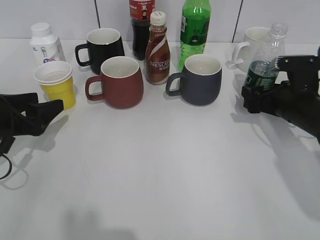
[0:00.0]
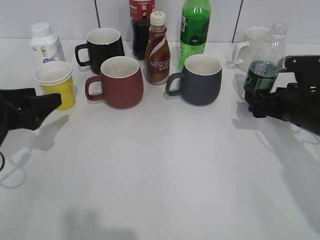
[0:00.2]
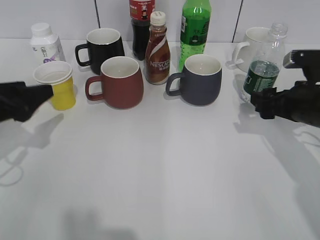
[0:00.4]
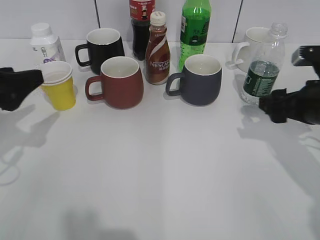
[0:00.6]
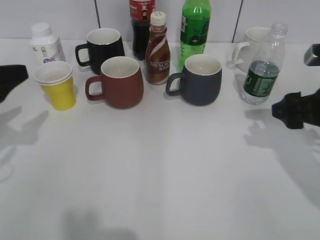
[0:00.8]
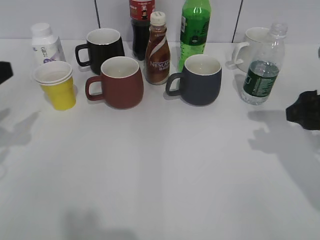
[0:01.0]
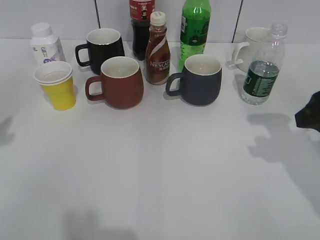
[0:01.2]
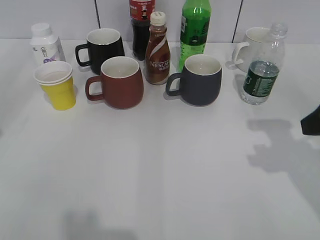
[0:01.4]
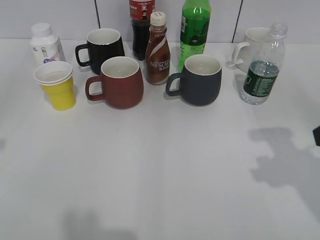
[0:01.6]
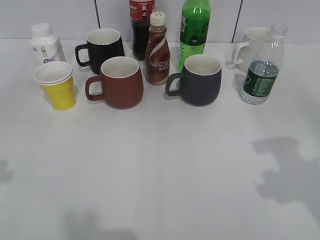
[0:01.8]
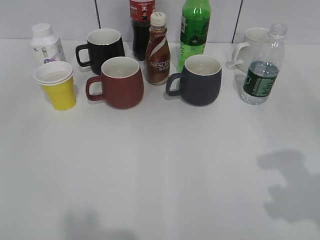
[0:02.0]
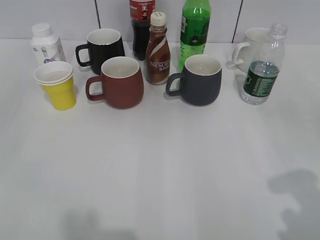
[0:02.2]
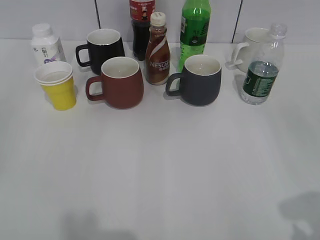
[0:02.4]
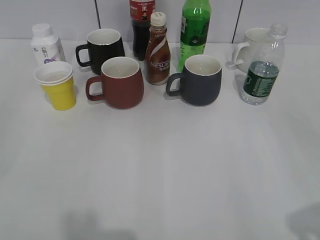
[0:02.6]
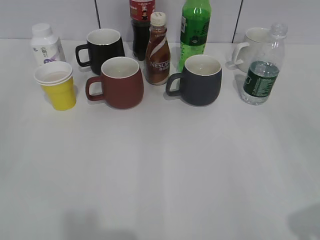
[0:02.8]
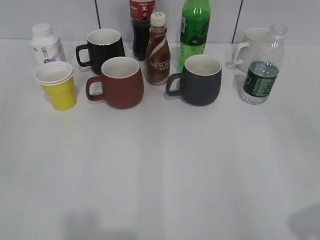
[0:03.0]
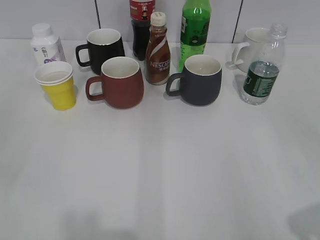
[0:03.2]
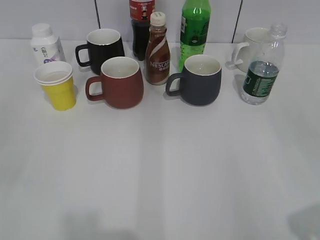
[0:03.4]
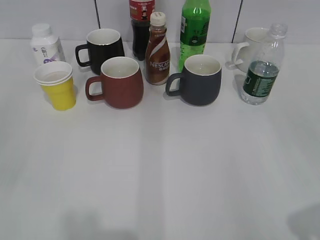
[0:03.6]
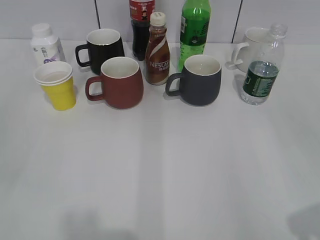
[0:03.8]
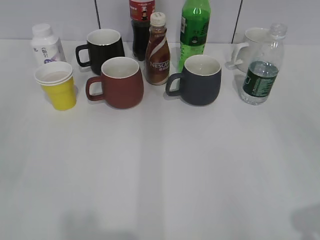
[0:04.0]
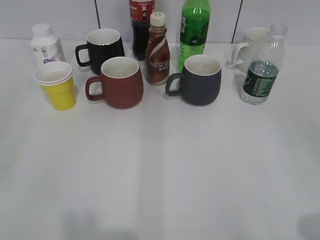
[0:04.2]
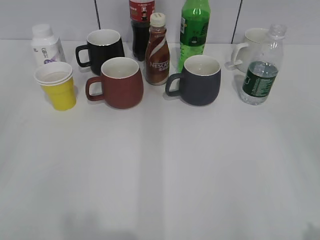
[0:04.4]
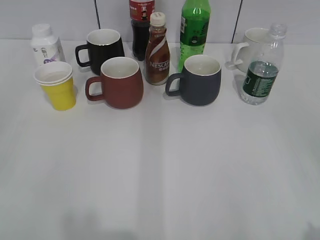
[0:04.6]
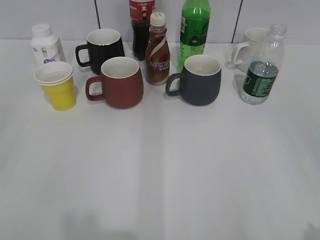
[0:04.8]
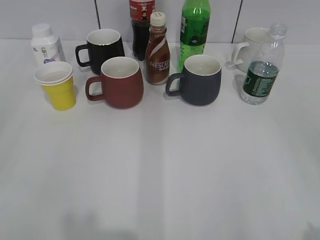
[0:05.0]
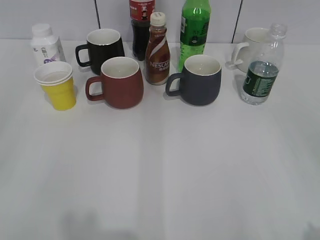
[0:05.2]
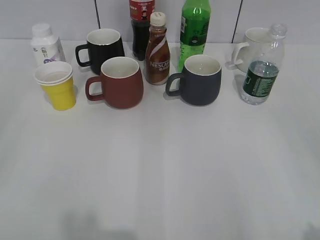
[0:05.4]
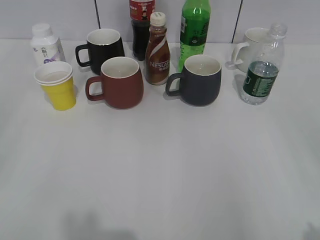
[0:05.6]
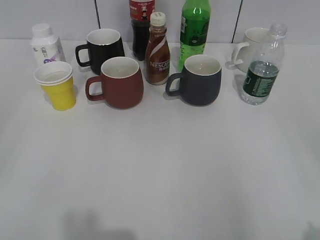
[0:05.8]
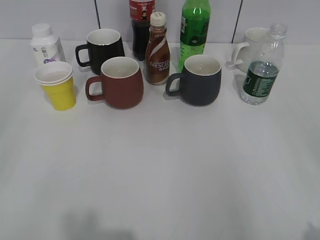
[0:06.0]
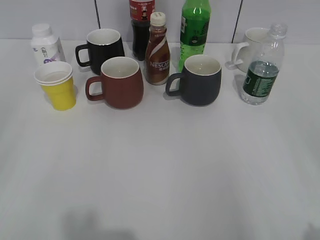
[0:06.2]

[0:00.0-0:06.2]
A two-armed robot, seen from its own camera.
0:00.0 to 0:01.6: Both grippers travel together upward and backward, about 20 cm. The right gripper closes up.
0:01.6 to 0:03.2: The right gripper is displaced backward by approximately 15 cm.
0:04.6 to 0:06.2: Neither gripper changes place.

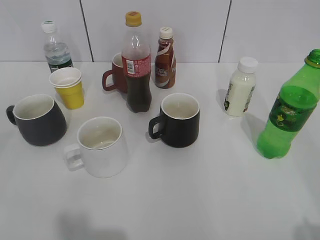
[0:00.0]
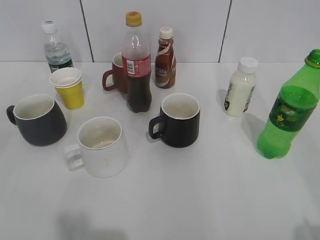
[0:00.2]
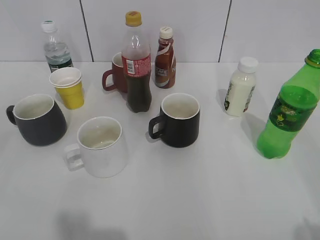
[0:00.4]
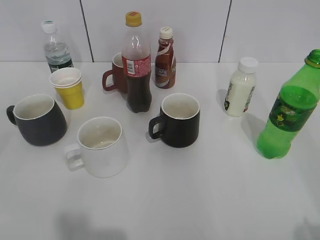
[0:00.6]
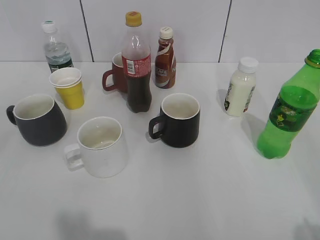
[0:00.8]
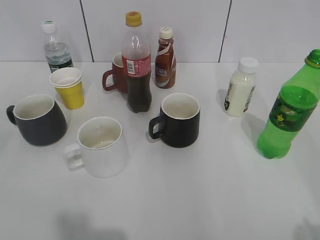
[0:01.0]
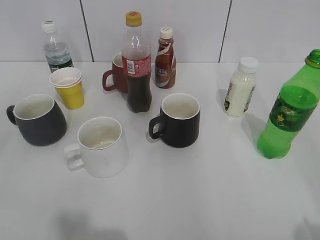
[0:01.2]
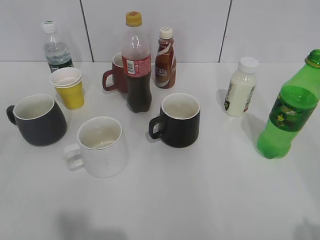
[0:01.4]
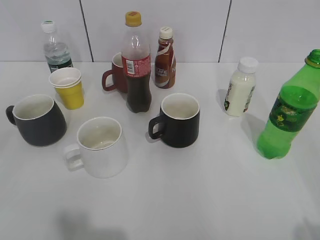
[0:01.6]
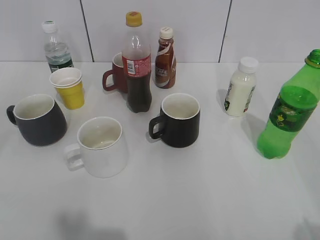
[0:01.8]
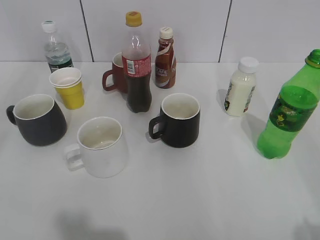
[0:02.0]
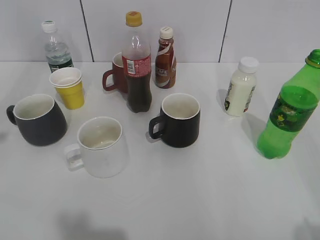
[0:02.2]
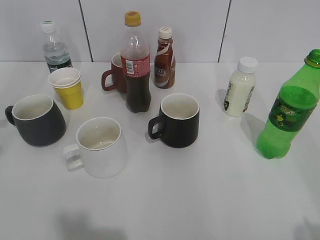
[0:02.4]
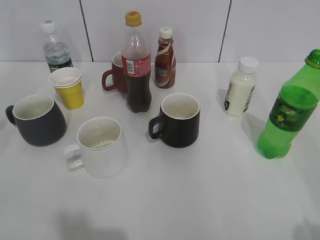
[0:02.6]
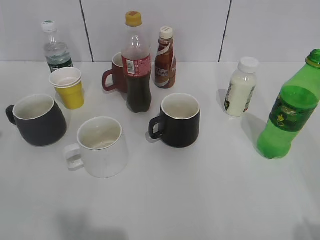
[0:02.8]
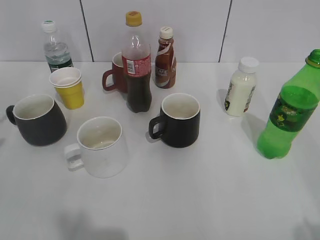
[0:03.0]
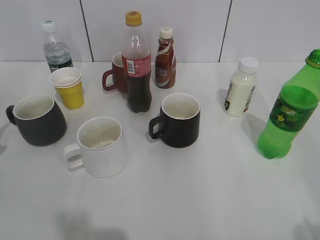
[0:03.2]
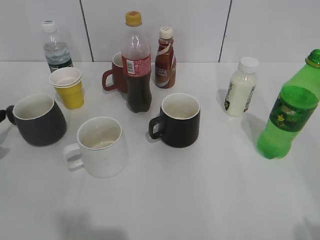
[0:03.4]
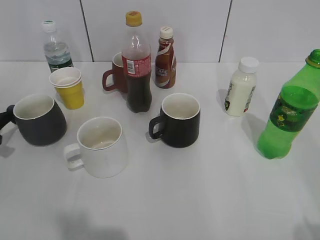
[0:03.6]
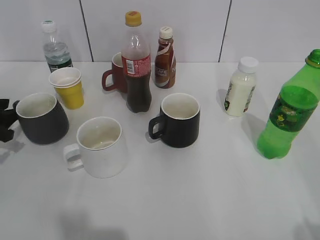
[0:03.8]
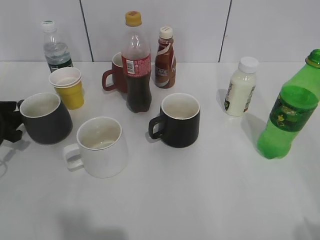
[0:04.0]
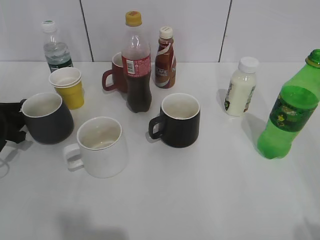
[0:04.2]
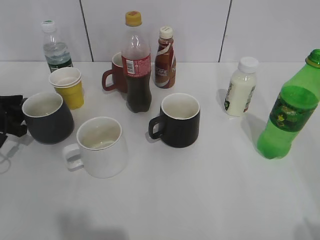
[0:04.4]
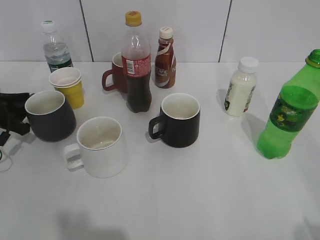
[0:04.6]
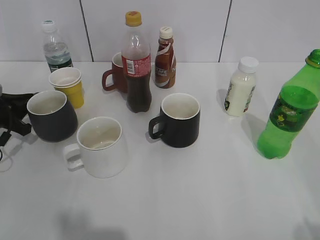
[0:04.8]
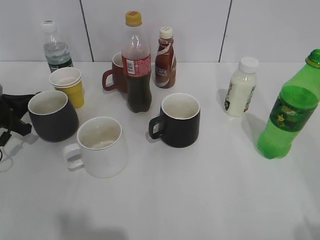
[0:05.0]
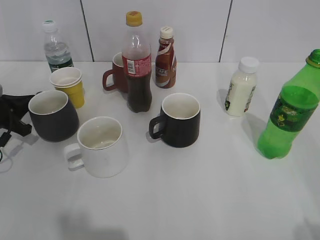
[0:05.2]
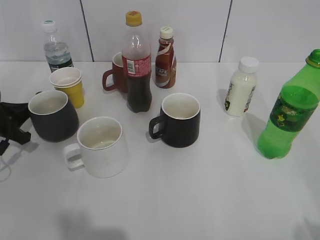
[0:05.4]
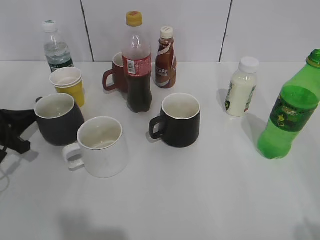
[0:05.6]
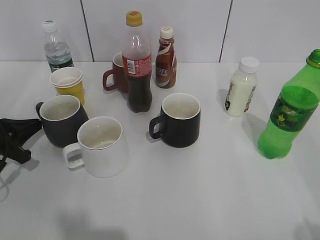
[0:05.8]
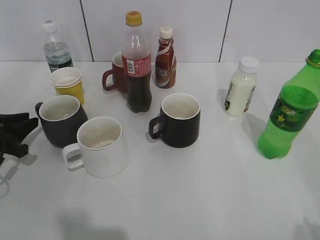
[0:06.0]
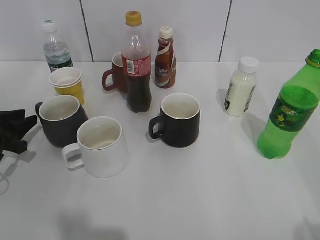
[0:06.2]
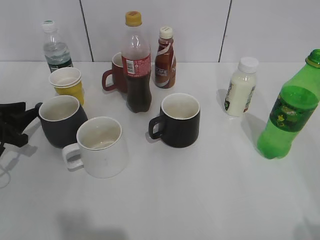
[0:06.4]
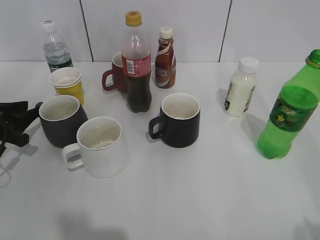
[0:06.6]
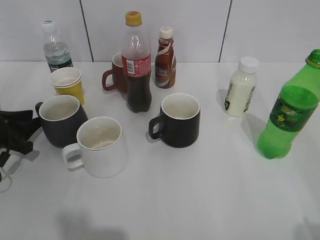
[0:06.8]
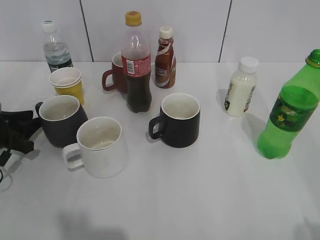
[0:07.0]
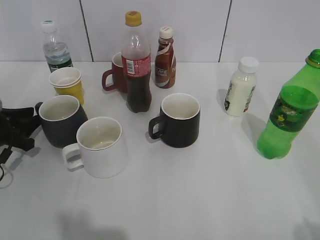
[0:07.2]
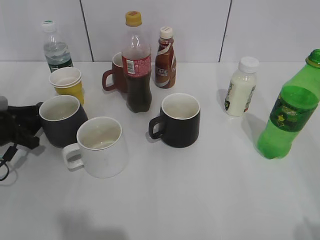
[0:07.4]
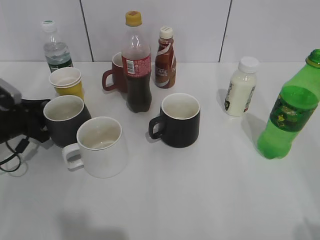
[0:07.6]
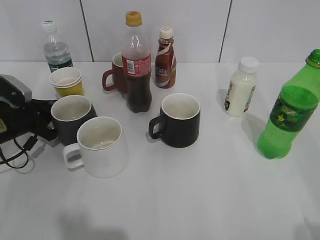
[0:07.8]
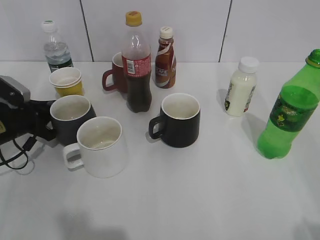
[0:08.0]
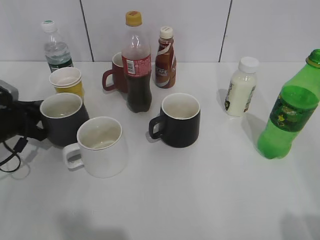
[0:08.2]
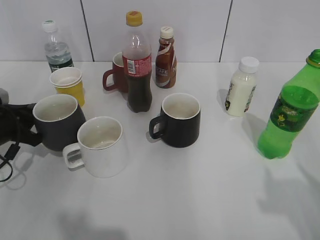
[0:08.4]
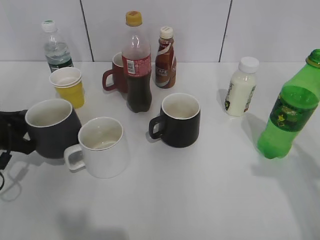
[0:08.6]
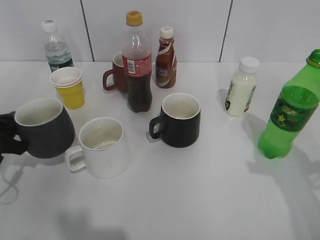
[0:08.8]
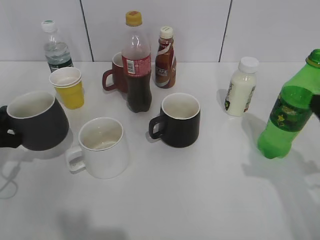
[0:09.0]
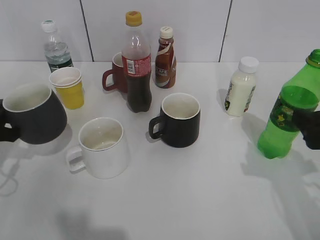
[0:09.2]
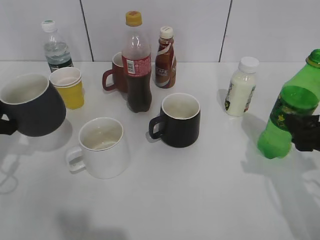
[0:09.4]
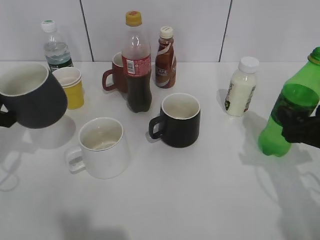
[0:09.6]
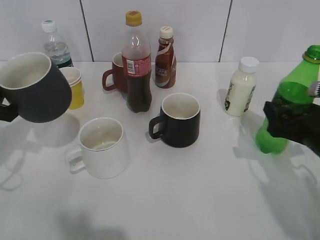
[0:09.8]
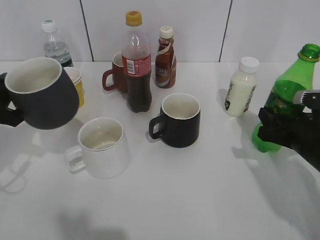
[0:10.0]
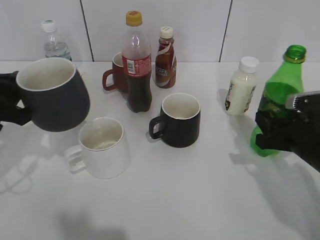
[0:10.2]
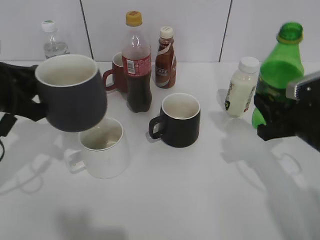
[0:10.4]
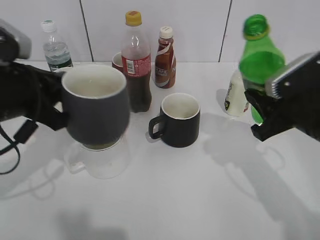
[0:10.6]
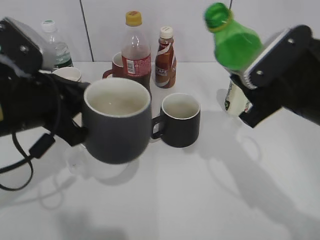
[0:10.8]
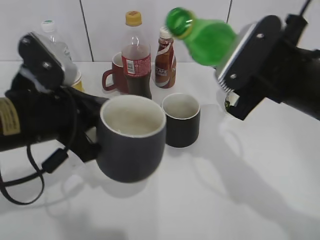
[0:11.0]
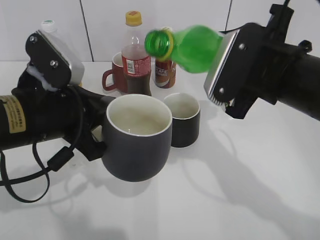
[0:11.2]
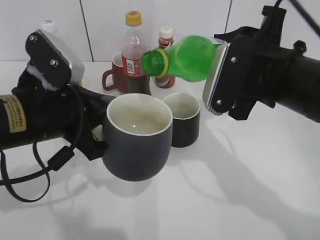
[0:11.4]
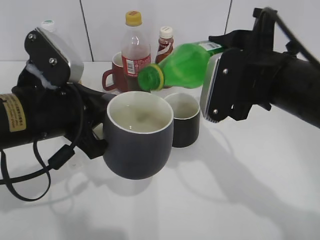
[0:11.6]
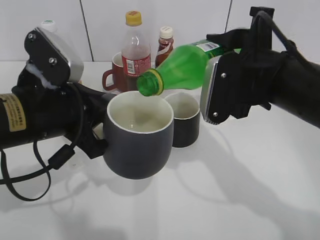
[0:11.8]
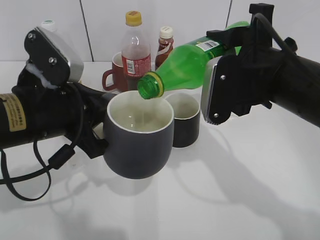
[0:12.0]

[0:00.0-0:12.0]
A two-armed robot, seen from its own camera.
Step, 0:03.2 to 0:07.4: Grasp the grey cup with left gripper.
Step, 0:07.6 to 0:09.4: Lift the grey cup with left gripper.
Step, 0:09.6 to 0:10.0: Grasp the bottle with sprite with right gripper.
0:03.0 to 0:04.4: The left gripper is displaced downward and forward by some 10 cm.
0:04.4 to 0:06.0: The left gripper ends up approximately 5 cm from where it was, and closes, then opens again.
0:06.0 to 0:07.6: The left gripper goes about 5 cm forward.
0:07.6 to 0:09.0: The left gripper is displaced backward by about 10 cm, and closes its fingers, while the right gripper shifts about 15 cm forward.
0:09.0 to 0:10.4: The left gripper shifts some 15 cm upward and to the right; the right gripper heads downward and forward, covering roughly 10 cm, and closes.
0:10.4 to 0:12.0: The right gripper heads to the left and upward, covering roughly 15 cm. The left gripper goes approximately 10 cm to the right.

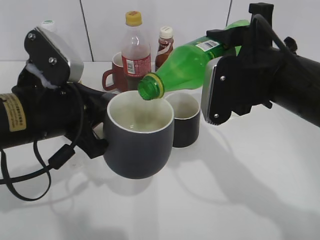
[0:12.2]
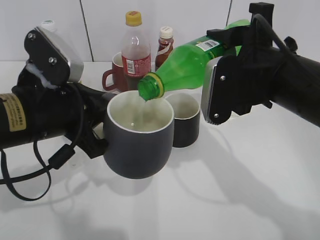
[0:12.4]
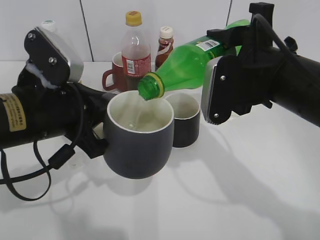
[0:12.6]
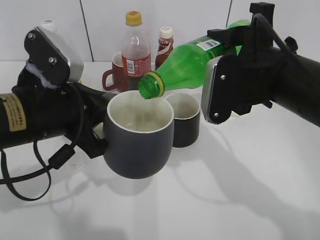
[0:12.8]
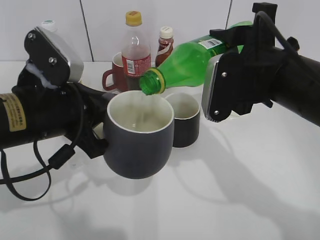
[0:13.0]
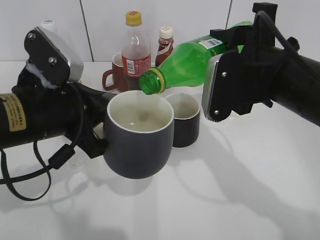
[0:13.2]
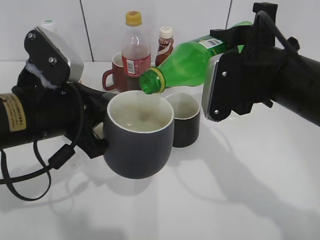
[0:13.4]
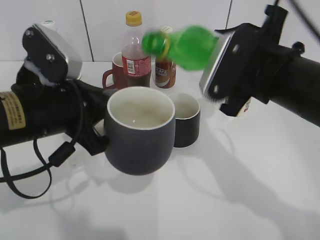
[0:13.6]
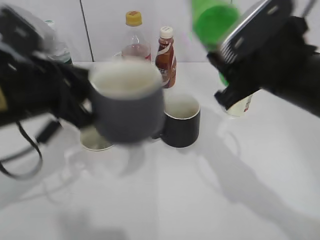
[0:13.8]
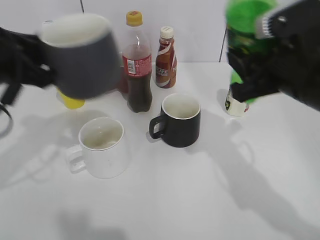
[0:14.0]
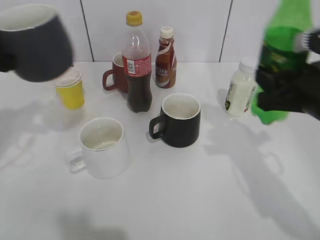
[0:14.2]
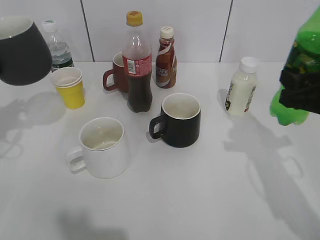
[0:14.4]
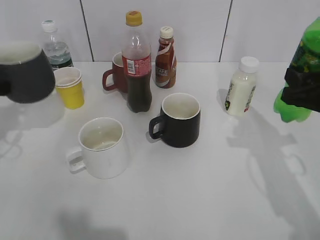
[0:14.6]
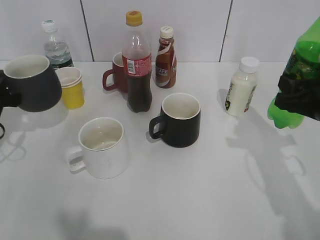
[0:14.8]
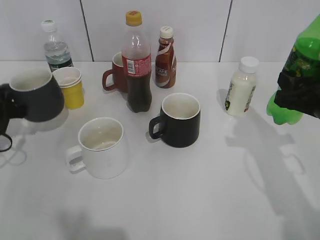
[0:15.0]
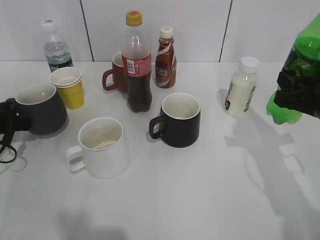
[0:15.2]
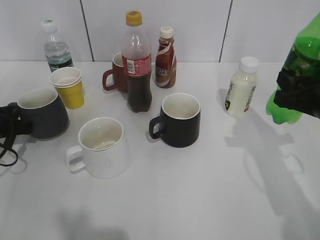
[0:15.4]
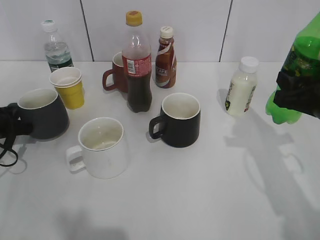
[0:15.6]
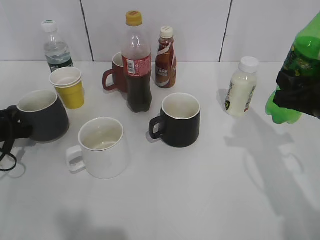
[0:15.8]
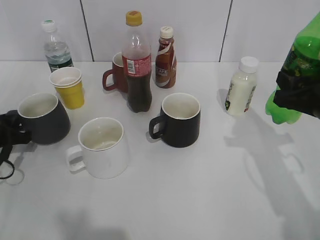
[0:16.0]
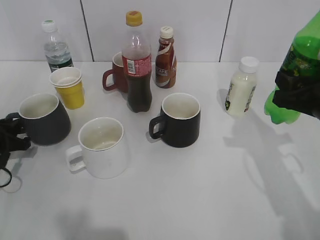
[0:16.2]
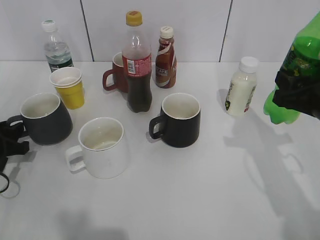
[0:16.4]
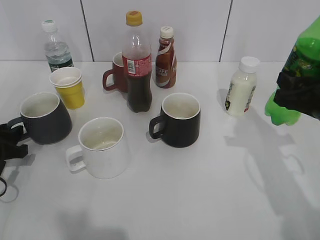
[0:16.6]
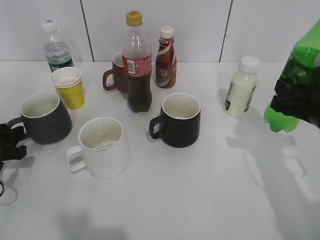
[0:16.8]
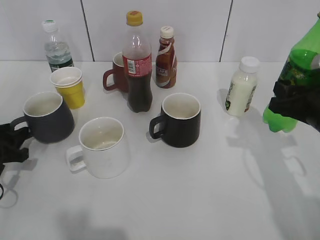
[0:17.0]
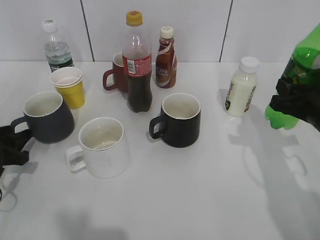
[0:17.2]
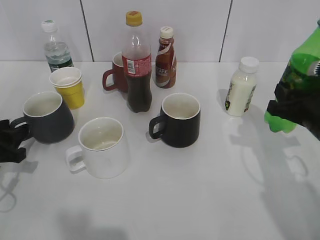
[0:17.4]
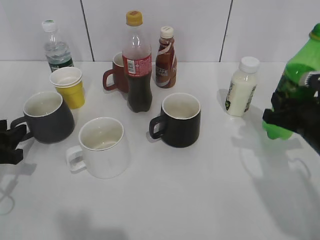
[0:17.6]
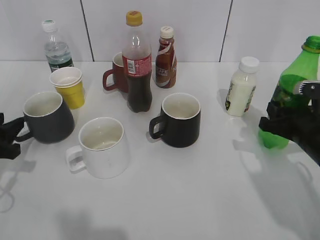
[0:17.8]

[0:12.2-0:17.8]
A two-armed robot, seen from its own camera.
Step, 0:13.8 to 0:17.0: Place the grey cup on the table with left gripper.
0:12.2 to 0:13.6: The grippers move only a little.
0:13.6 to 0:15.0: The left gripper heads to the left, forward and downward, covering approximately 25 cm. The right gripper goes some 10 cm to the right and downward.
0:15.0 to 0:16.4: The left gripper shifts by some 5 cm, and opens.
0:16.4 to 0:17.8: The right gripper travels downward by about 5 cm; the left gripper shifts by some 5 cm.
